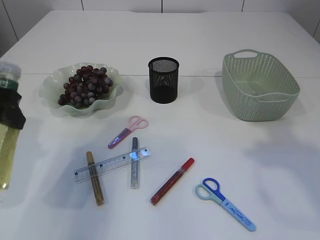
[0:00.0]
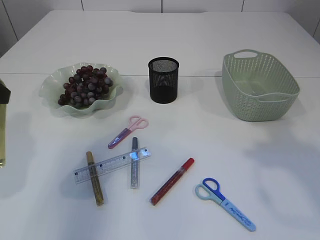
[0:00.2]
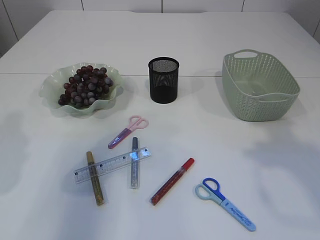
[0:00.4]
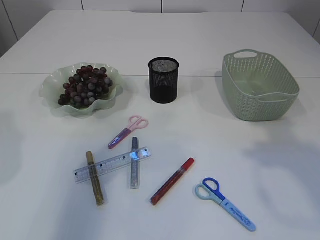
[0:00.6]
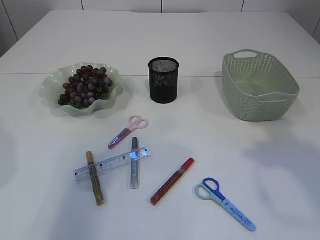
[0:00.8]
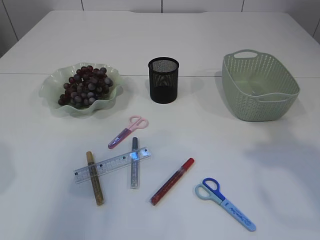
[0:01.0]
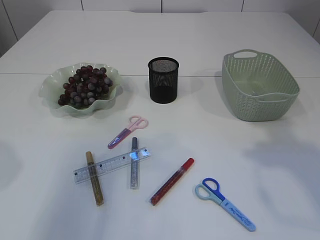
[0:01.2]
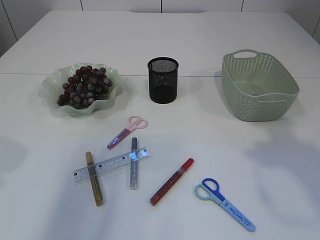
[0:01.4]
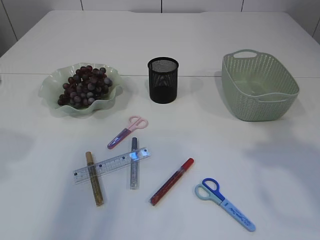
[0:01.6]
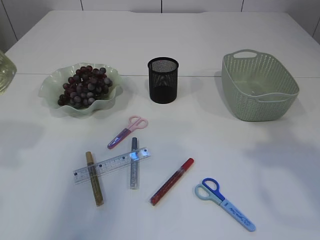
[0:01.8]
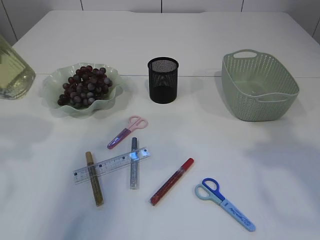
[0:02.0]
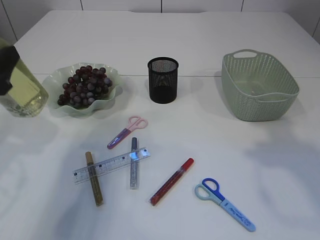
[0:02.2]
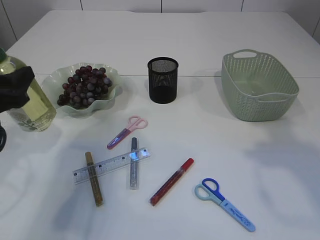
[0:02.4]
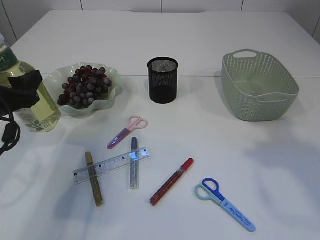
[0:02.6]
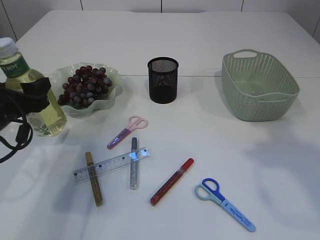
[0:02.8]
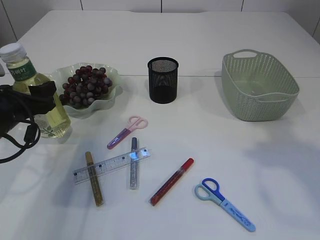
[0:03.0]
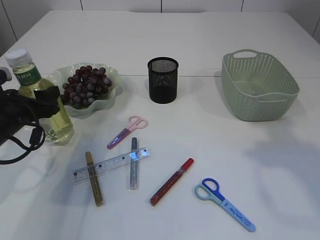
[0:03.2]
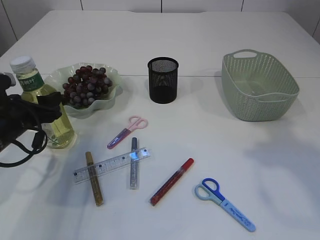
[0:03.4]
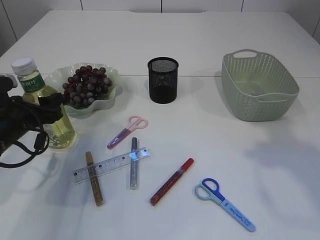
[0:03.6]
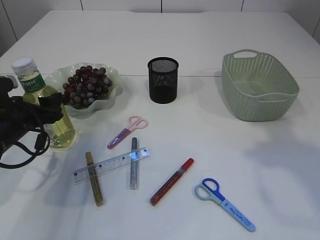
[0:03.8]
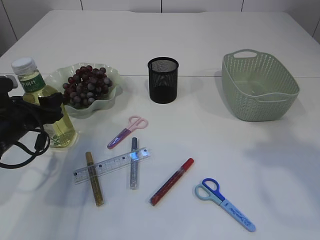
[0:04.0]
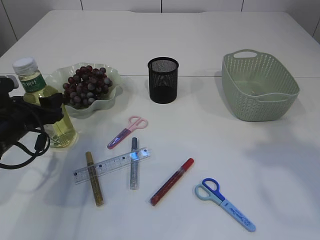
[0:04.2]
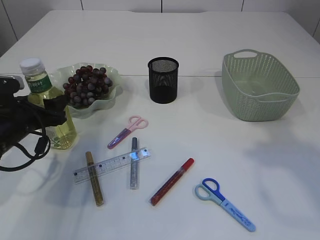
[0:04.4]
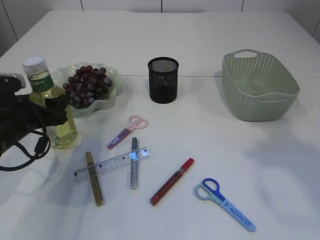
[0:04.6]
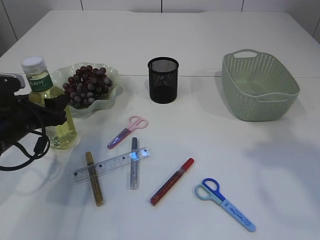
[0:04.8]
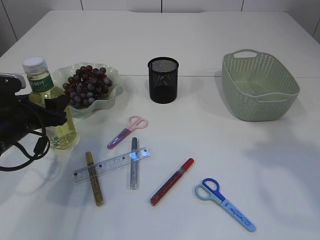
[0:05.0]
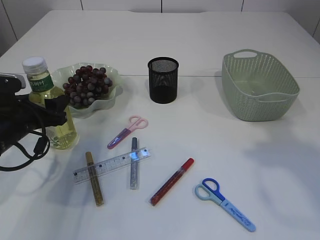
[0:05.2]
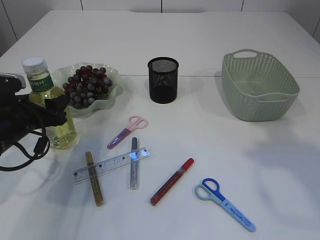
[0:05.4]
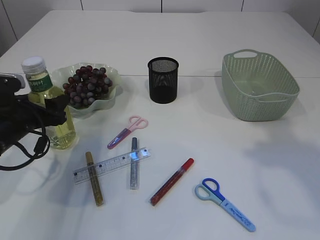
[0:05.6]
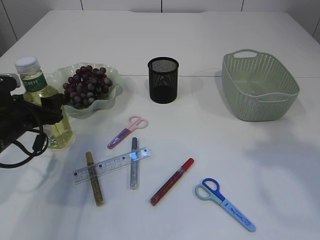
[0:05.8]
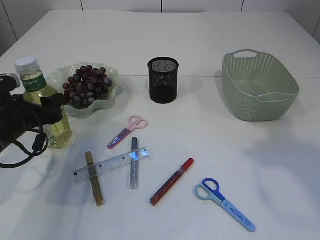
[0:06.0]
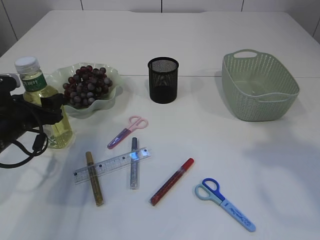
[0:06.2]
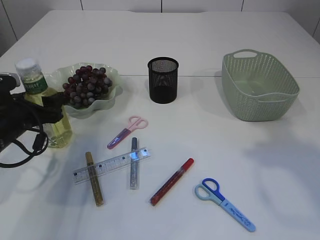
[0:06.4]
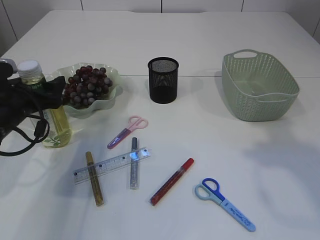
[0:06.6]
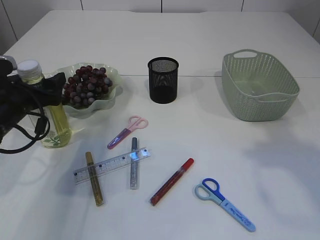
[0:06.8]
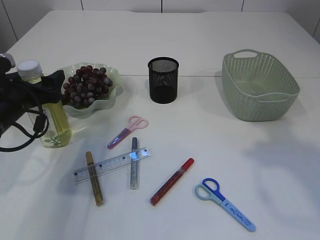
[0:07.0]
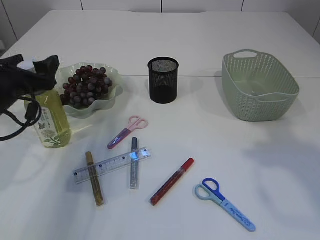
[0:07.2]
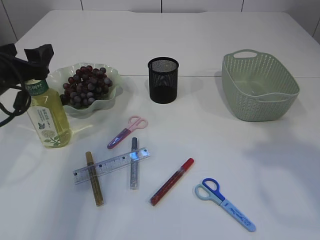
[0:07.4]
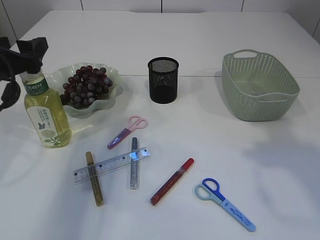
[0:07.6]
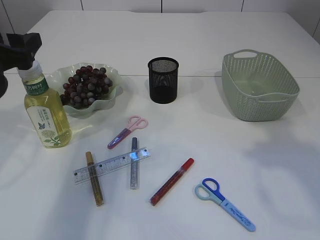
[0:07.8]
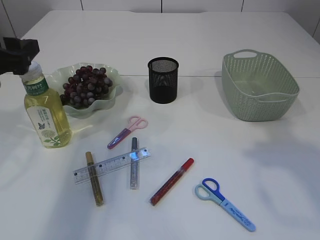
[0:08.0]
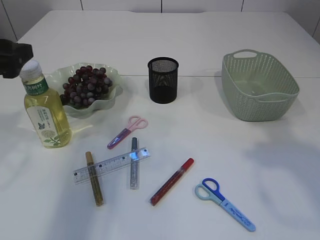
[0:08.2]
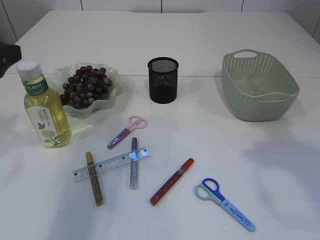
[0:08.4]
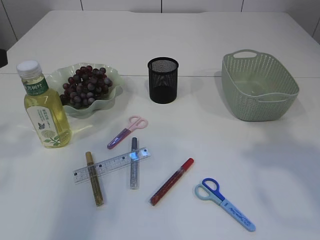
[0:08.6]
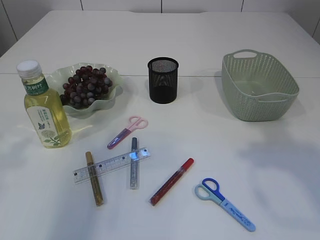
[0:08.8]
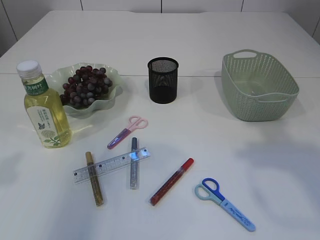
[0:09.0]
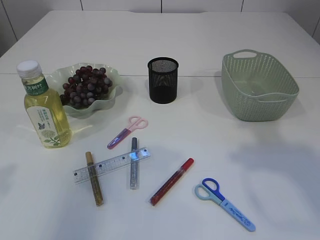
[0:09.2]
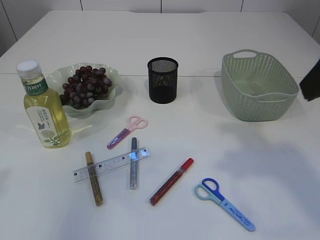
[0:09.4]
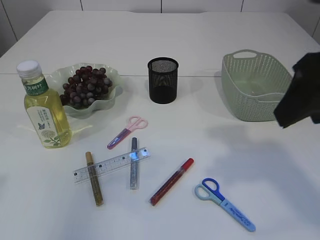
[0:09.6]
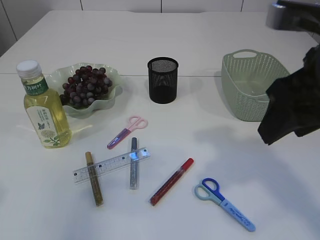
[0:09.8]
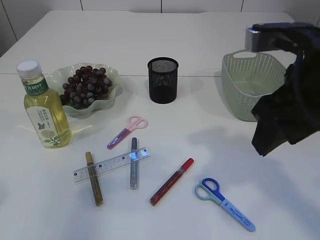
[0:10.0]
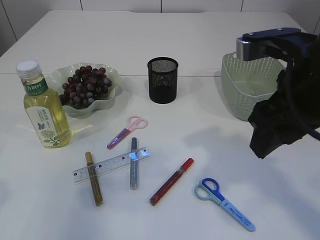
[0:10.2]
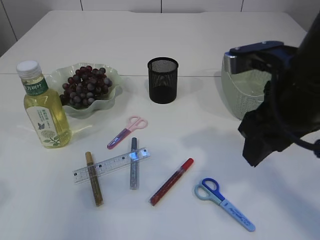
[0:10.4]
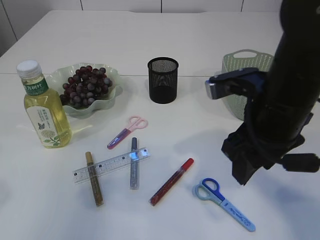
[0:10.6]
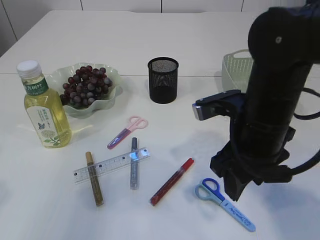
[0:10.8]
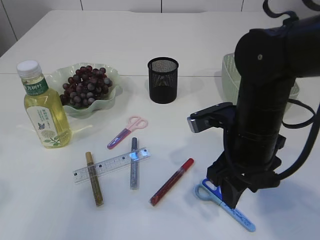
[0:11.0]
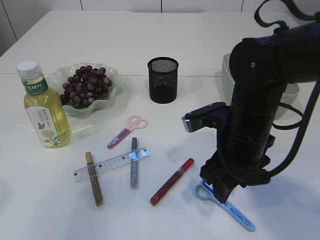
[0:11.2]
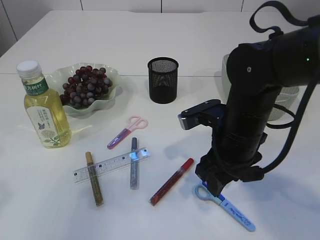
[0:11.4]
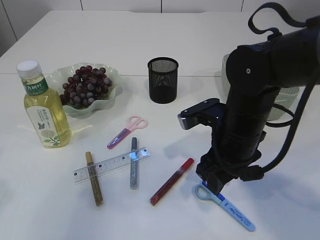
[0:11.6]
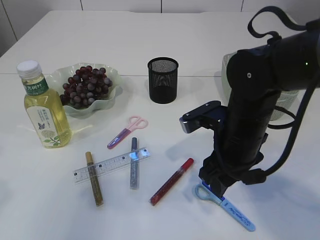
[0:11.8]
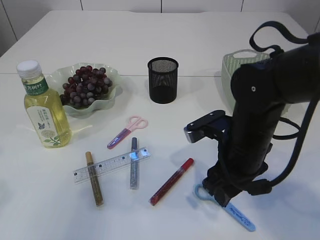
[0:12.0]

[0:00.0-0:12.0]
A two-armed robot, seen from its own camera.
Step, 0:00.0 to 0:07.6: Place the bottle.
0:00.0 to 0:01.6: The left gripper moves backward, approximately 10 cm.
0:01.6 to 0:03.0: The left gripper goes approximately 25 cm forward and downward.
0:03.0 to 0:04.4: There are only small adjustments of the grippers.
0:04.4 to 0:06.0: Both grippers stay put.
0:06.0 to 0:07.6: The left gripper travels upward by some 10 cm.
0:07.6 to 0:09.0: The left gripper shifts approximately 15 cm backward and upward.
0:09.0 to 0:10.4: The right gripper travels to the left and downward by approximately 15 cm.
0:10.4 to 0:12.0: The right gripper travels downward by about 15 cm.

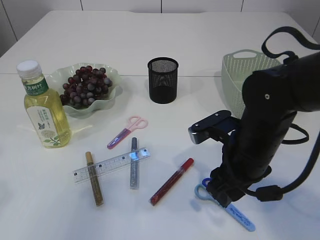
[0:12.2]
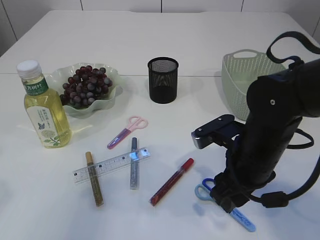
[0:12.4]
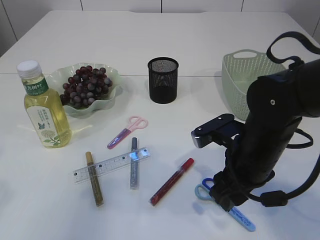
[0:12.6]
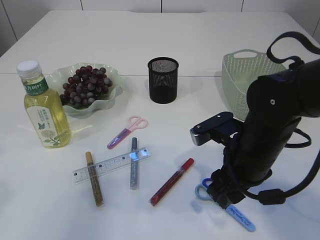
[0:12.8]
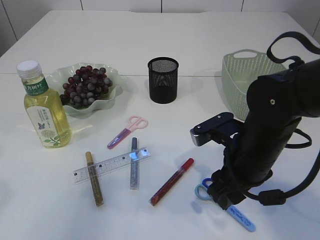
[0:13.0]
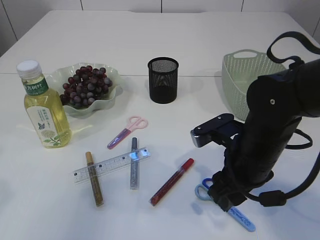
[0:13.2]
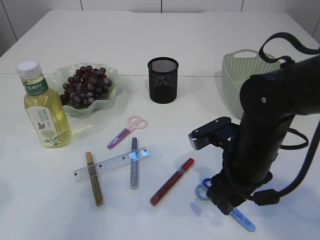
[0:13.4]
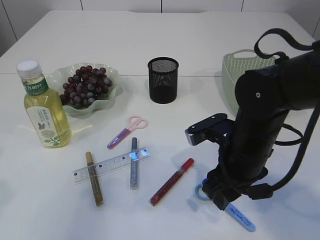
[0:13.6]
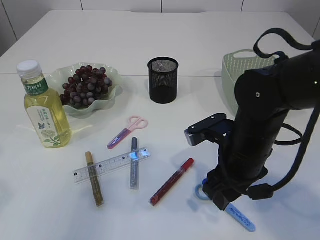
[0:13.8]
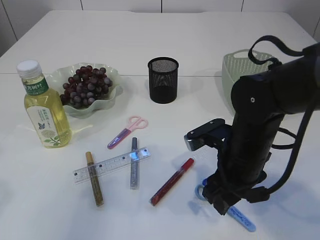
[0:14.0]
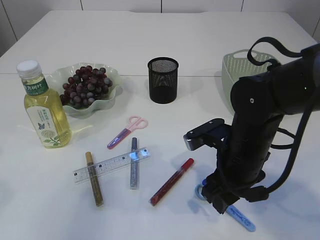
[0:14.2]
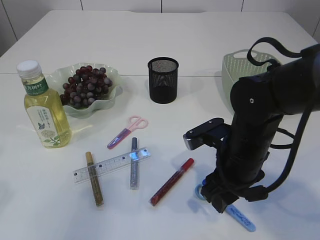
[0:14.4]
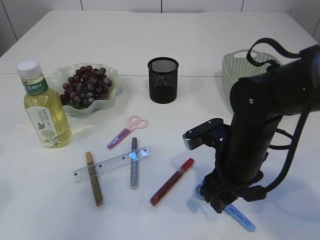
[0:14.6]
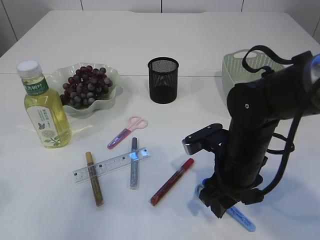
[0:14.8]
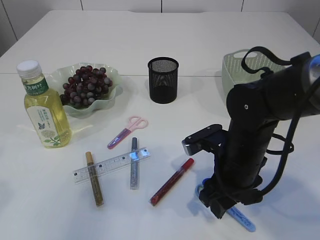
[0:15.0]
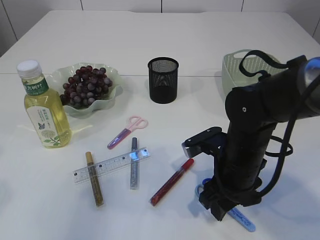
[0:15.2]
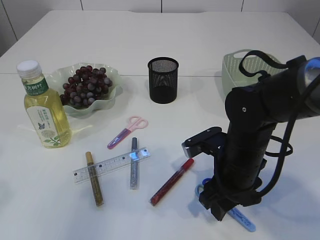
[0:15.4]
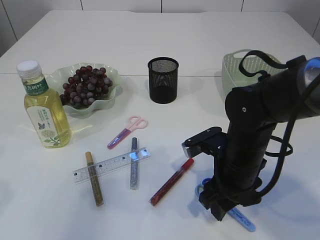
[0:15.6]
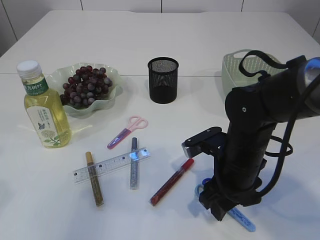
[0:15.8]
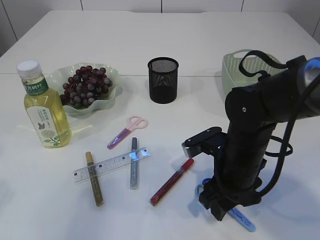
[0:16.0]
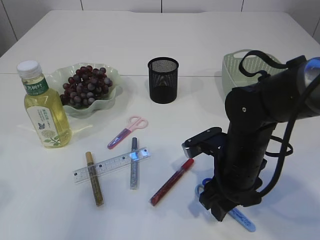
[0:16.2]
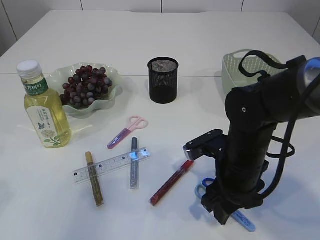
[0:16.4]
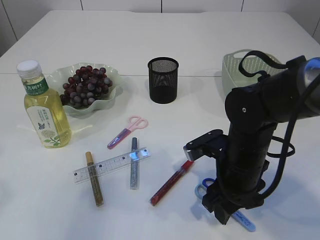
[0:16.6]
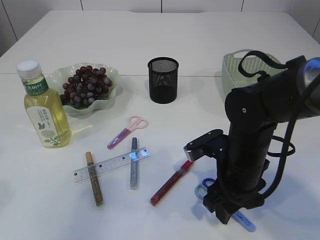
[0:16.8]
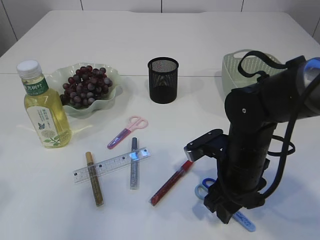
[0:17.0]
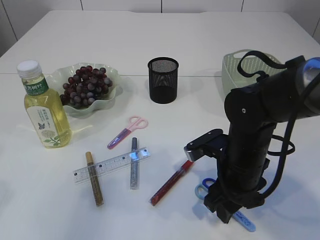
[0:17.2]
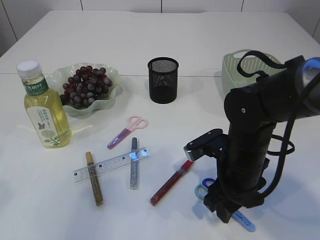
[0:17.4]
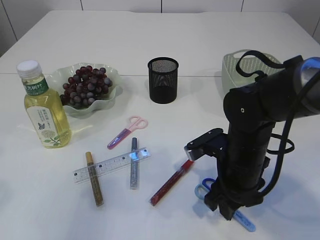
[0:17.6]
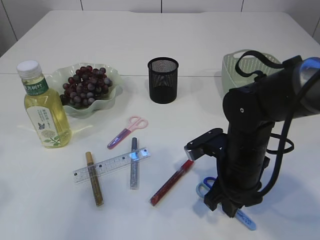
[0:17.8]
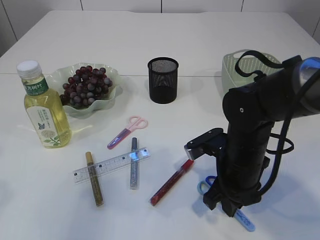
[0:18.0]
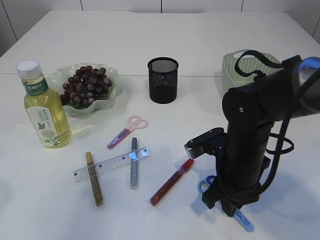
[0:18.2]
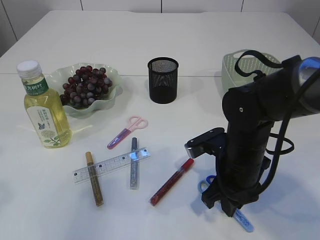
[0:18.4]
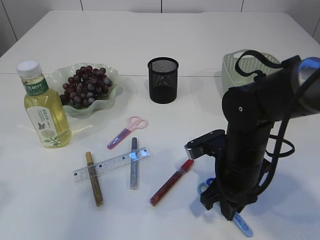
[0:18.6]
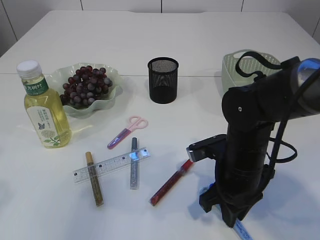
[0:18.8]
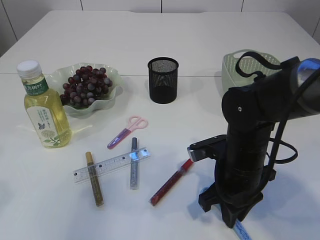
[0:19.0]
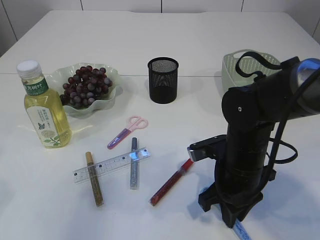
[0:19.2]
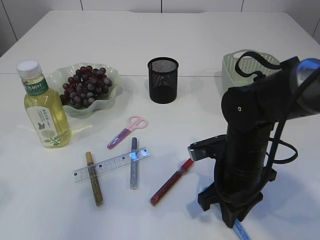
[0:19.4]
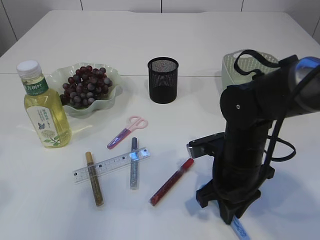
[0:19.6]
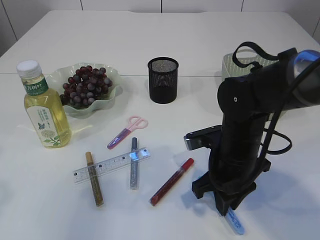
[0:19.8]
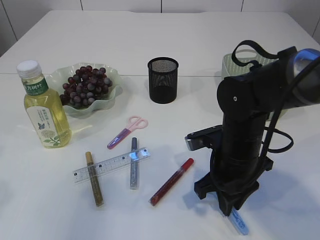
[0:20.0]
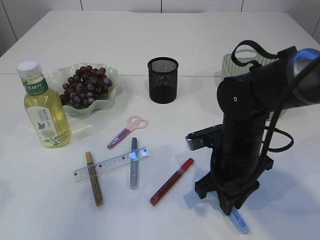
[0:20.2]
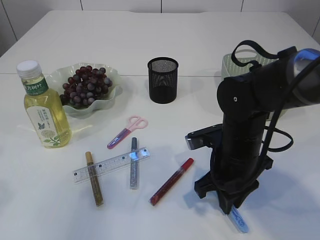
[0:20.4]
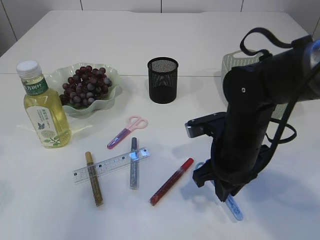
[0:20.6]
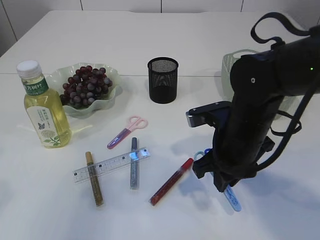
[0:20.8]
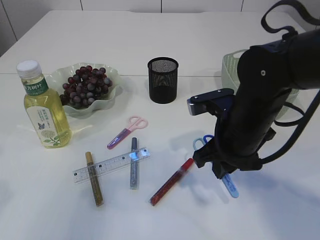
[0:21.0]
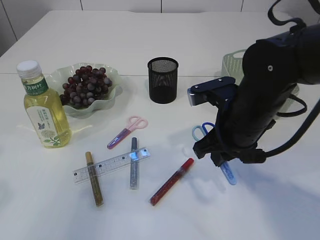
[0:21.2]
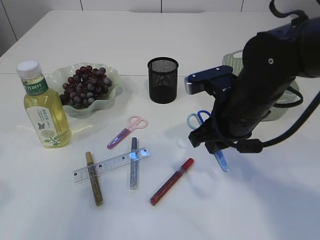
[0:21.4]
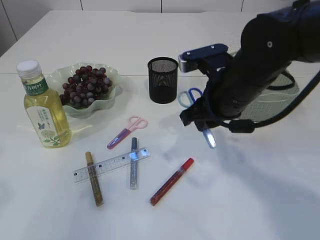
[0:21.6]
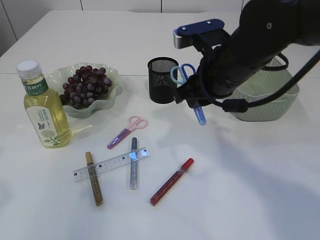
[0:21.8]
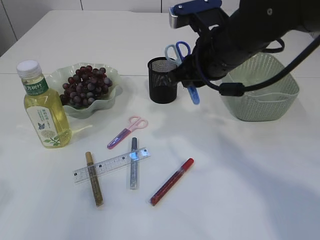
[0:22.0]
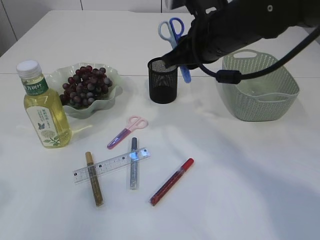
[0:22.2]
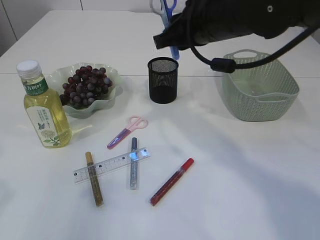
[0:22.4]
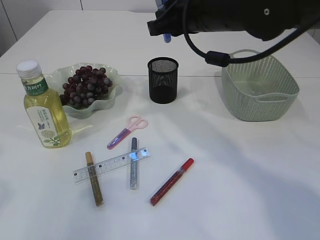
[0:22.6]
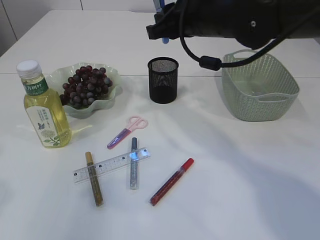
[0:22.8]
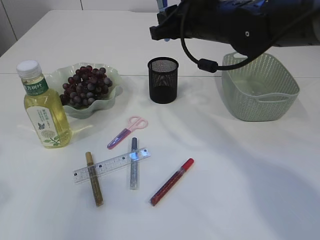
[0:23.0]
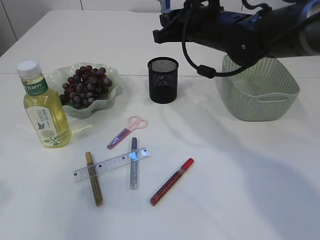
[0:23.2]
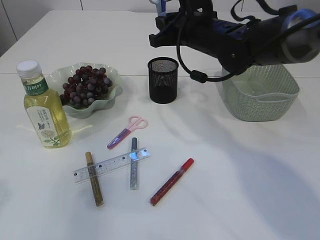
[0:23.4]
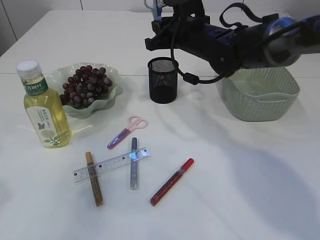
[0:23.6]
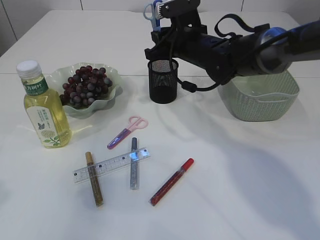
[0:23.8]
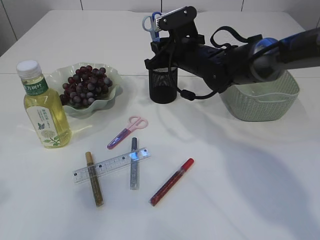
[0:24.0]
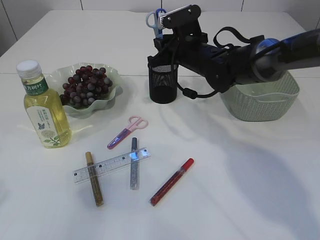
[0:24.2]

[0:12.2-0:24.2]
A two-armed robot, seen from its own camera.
Step, 0:12.2 to 0:21.0: pick up the blue scissors.
0:12.2 to 0:13.8: Both grippers stay about where they are.
0:13.8 to 0:15.2: The grippers make only small movements.
0:15.2 to 0:16.6: The two grippers keep their place.
0:16.6 to 0:18.2: The right gripper closes.
0:18.2 to 0:19.8: There are only small adjustments of the grippers.
0:19.8 to 0:21.2: The right gripper is displaced upward by approximately 5 cm.
0:21.2 to 0:22.6: The right gripper moves upward and forward, roughly 15 cm.
0:22.6 to 0:24.2: The right gripper shifts roughly 15 cm downward and forward.
